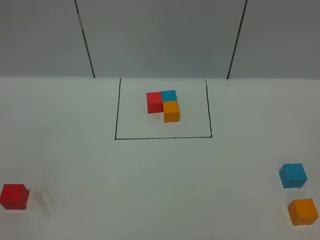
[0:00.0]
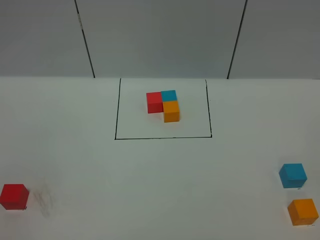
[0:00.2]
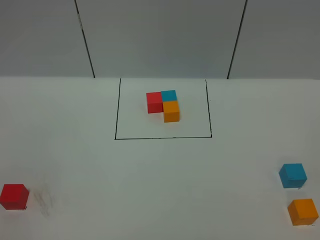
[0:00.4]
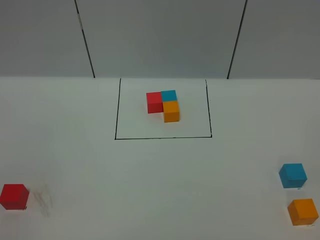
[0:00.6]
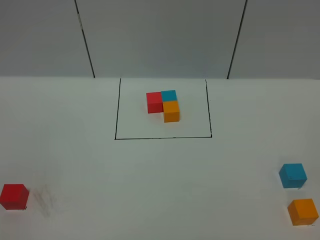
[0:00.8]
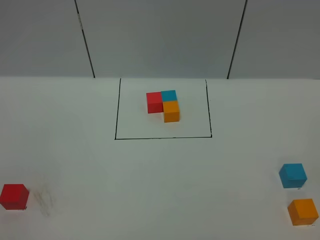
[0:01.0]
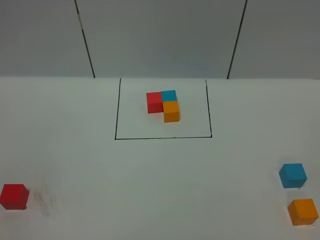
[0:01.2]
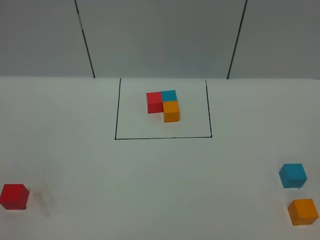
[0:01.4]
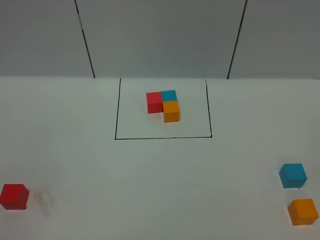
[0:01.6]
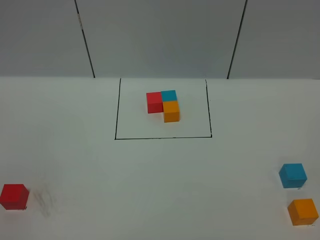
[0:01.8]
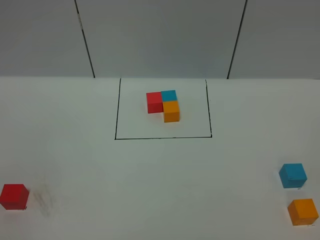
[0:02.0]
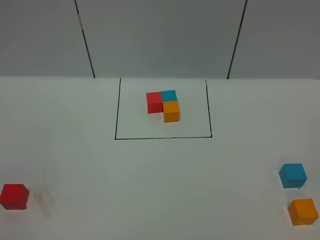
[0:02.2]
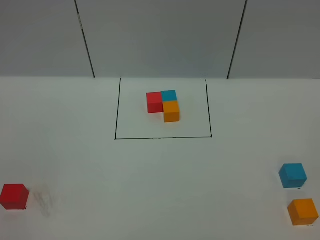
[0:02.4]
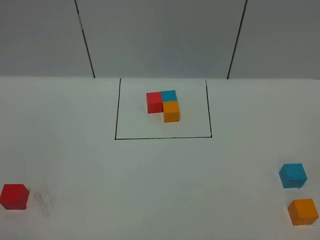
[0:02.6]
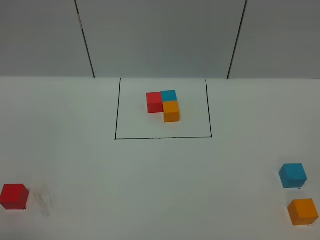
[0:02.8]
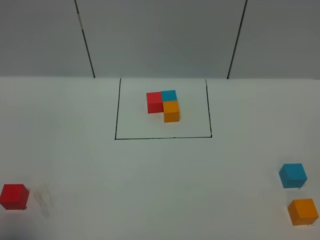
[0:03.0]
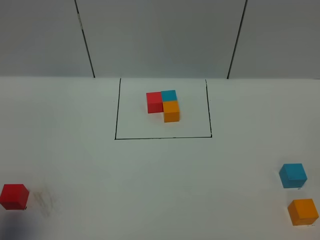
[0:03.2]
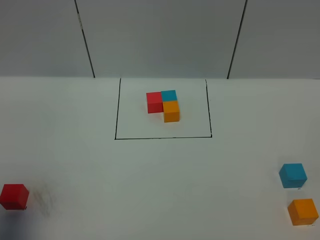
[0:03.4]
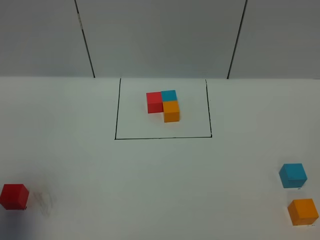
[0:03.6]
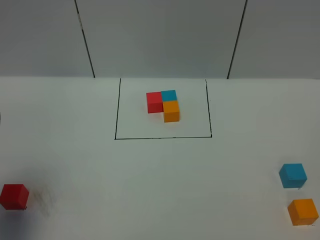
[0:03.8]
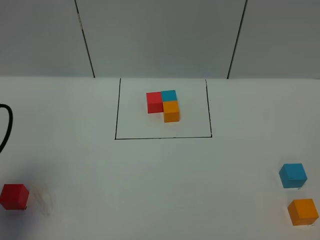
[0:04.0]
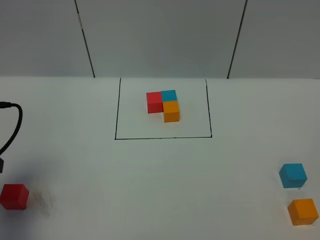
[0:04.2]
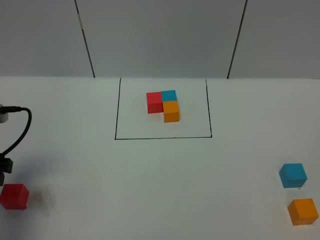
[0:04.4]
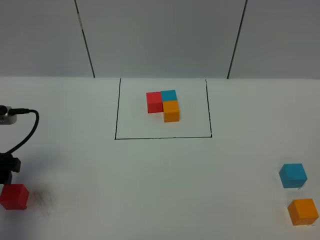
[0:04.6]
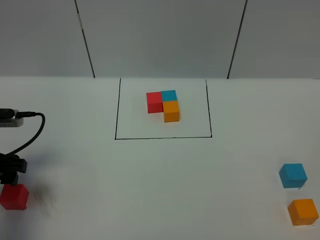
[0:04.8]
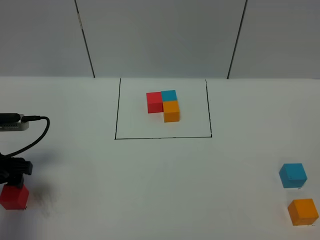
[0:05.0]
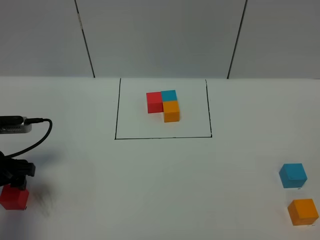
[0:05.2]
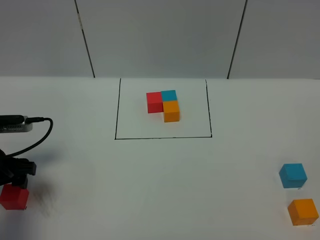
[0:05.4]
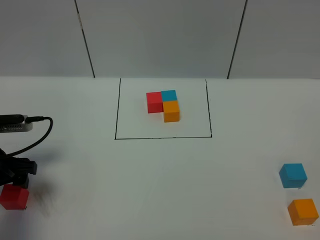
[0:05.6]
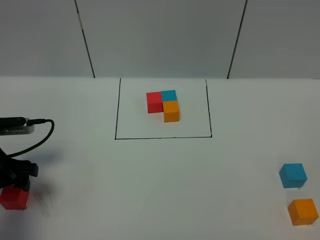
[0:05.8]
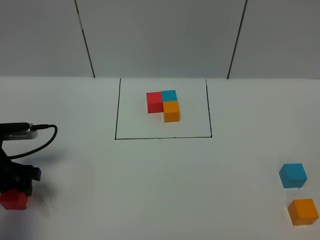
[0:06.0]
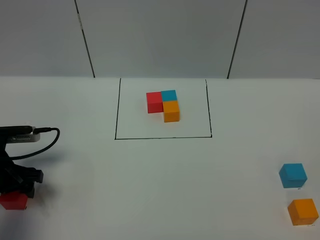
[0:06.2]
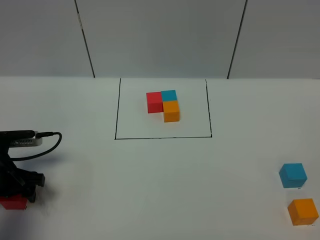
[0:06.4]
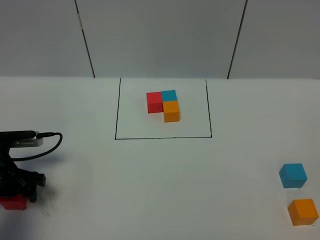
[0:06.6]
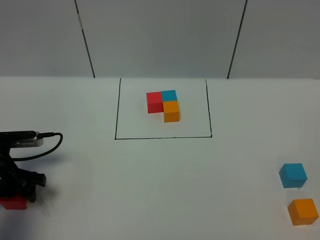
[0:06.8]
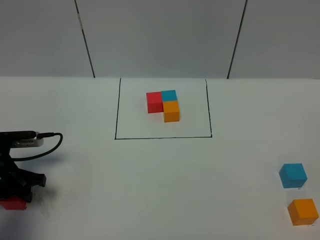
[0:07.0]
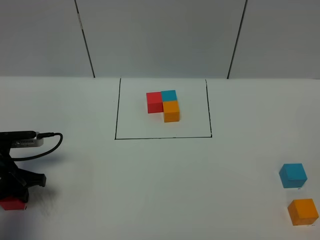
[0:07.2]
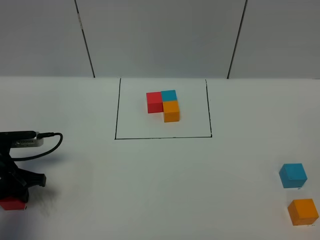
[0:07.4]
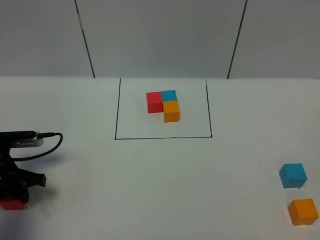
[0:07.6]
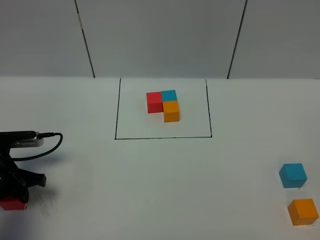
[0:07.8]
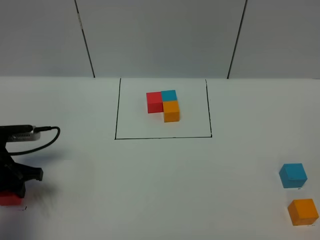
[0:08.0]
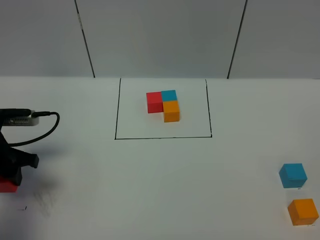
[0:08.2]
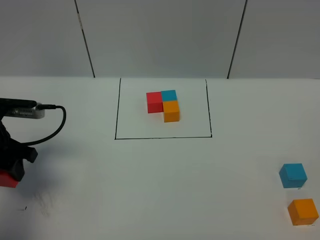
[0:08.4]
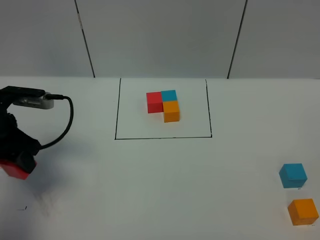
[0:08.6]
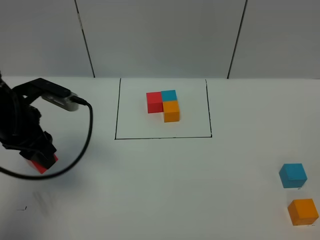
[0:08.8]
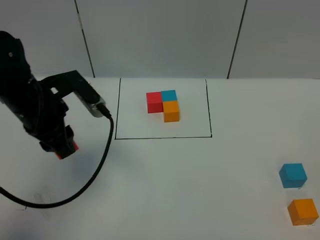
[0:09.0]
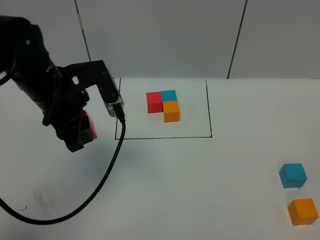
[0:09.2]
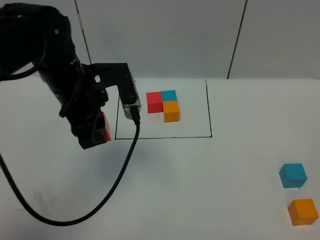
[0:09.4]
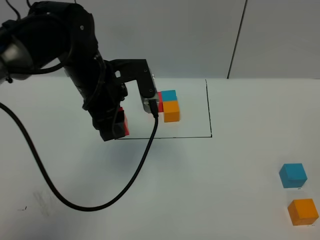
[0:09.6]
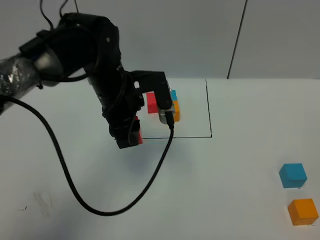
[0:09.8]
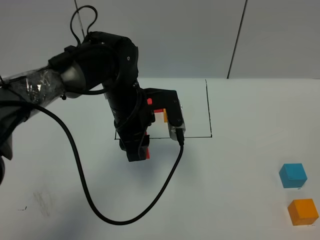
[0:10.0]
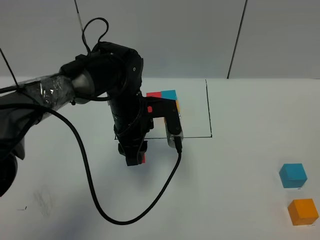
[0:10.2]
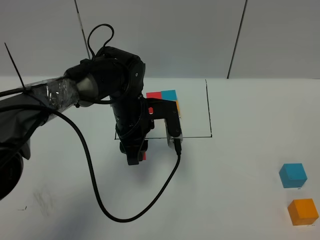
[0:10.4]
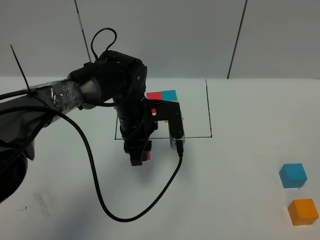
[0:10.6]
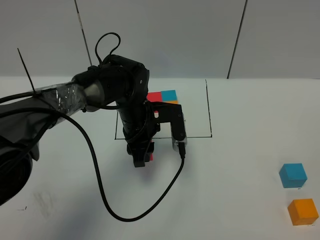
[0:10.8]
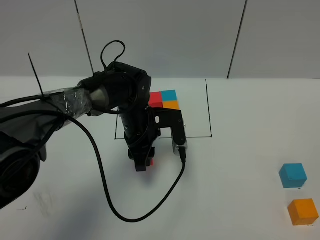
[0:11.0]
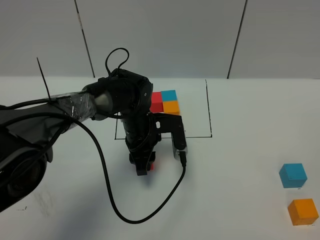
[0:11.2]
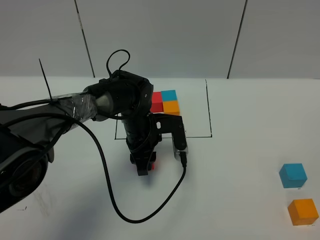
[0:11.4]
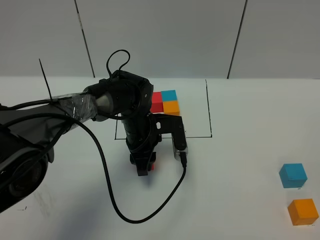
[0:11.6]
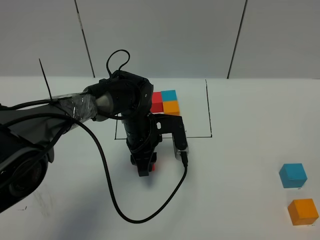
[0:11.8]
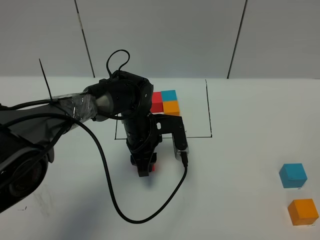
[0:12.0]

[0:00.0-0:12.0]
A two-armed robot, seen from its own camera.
Task of the whole recording: According to the building block template in front, assemble the scattered blocks together.
0:00.0 to 0:01.6: Both grippers stay about where they are.
0:03.0 to 0:04.4: The left gripper is displaced forward and downward by about 20 cm.
0:04.4 to 0:06.0: The left gripper goes roughly 10 cm downward.
0:06.0 to 0:07.6: The left gripper closes.
0:07.6 to 0:09.0: The left gripper goes roughly 20 cm upward and to the right.
0:09.0 to 0:10.4: The left gripper goes roughly 15 cm to the right, downward and forward.
0:10.4 to 0:12.0: The left gripper is displaced downward by some 5 cm.

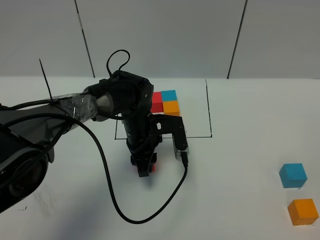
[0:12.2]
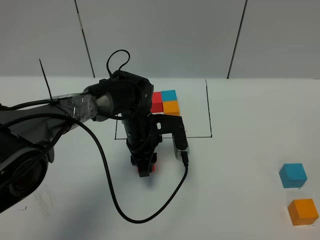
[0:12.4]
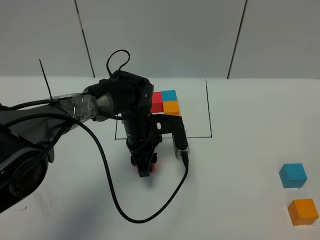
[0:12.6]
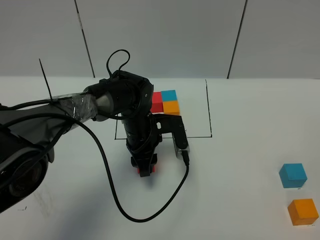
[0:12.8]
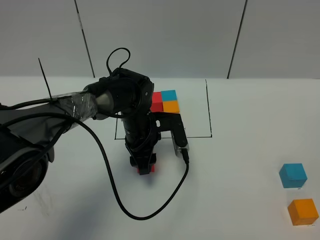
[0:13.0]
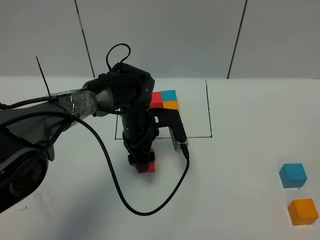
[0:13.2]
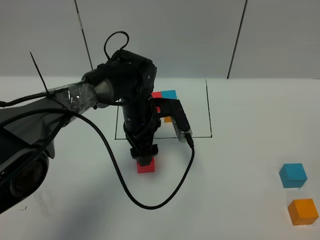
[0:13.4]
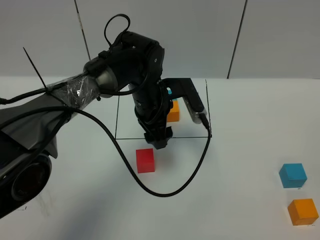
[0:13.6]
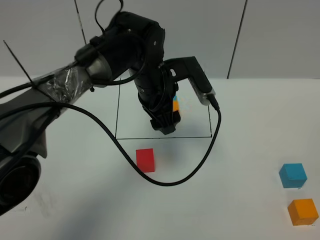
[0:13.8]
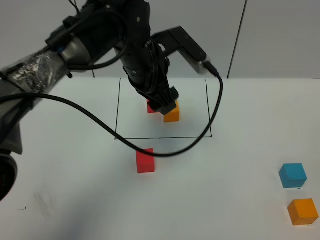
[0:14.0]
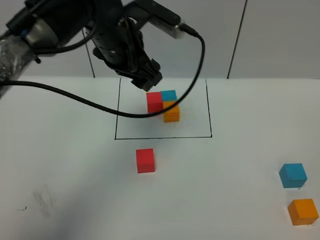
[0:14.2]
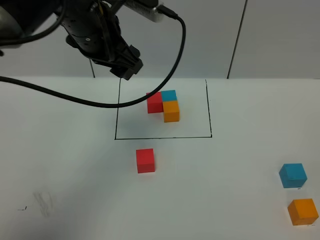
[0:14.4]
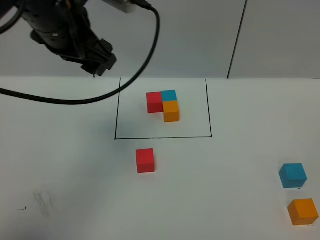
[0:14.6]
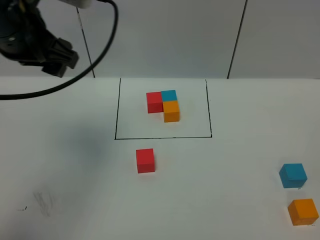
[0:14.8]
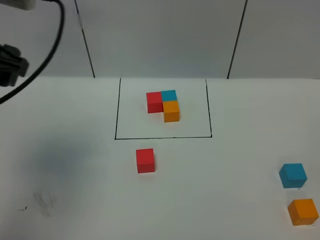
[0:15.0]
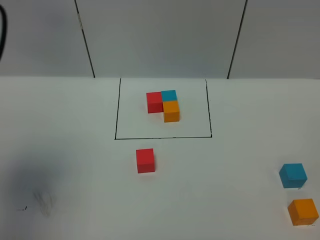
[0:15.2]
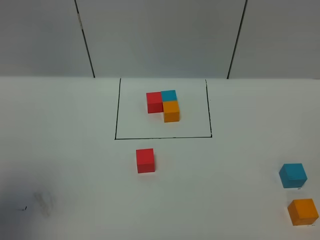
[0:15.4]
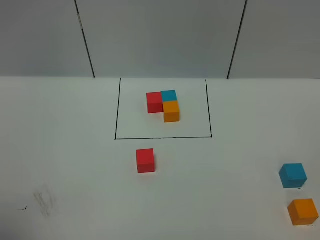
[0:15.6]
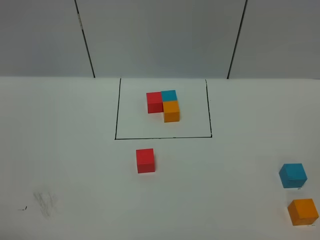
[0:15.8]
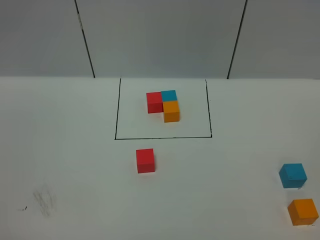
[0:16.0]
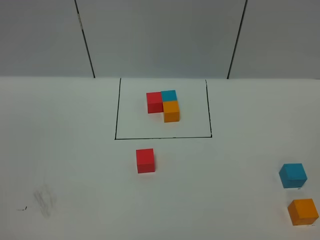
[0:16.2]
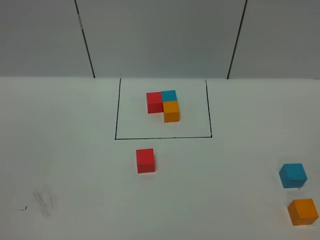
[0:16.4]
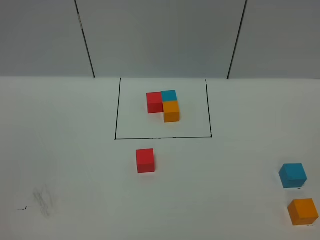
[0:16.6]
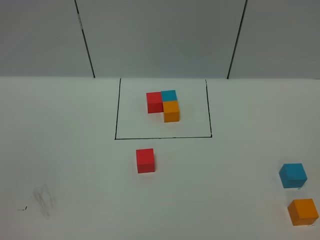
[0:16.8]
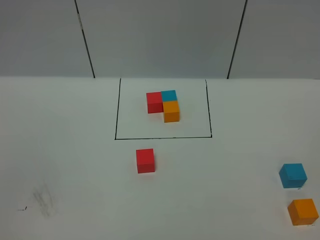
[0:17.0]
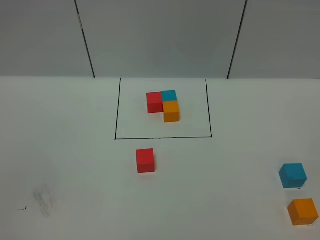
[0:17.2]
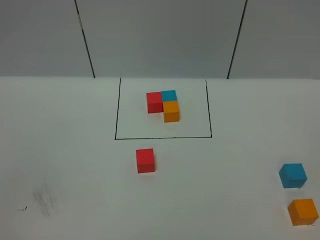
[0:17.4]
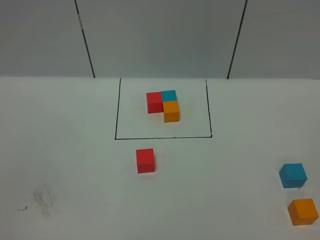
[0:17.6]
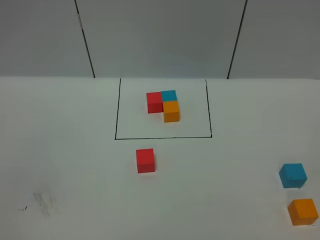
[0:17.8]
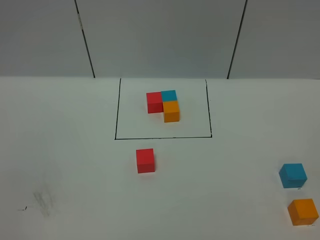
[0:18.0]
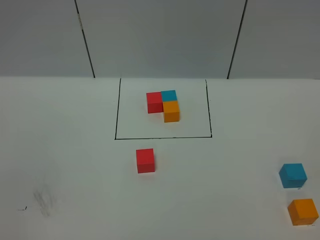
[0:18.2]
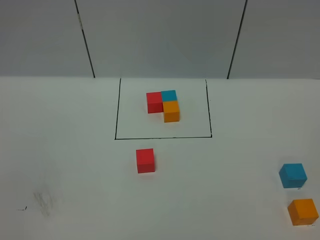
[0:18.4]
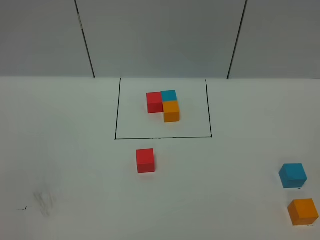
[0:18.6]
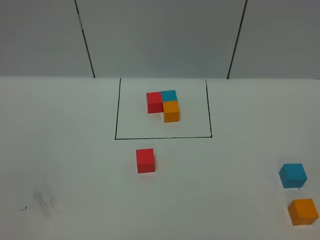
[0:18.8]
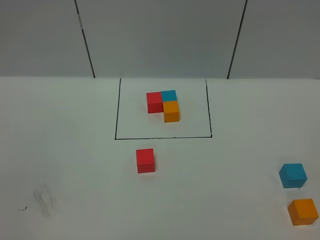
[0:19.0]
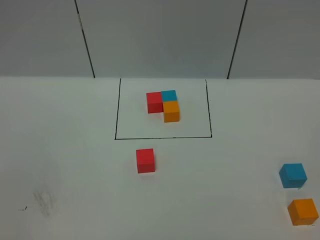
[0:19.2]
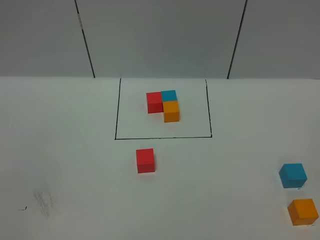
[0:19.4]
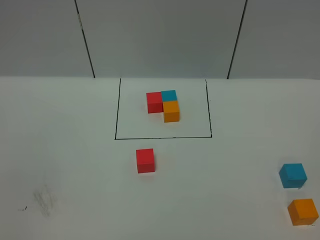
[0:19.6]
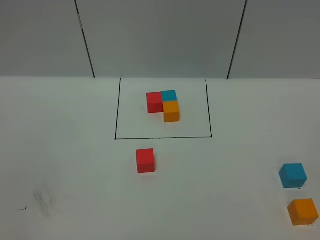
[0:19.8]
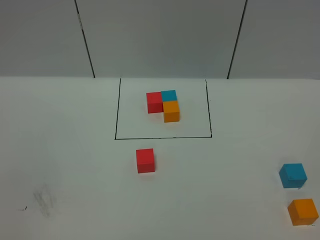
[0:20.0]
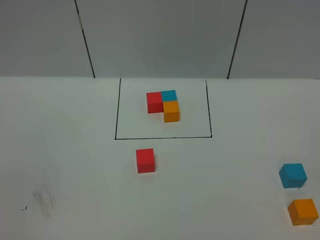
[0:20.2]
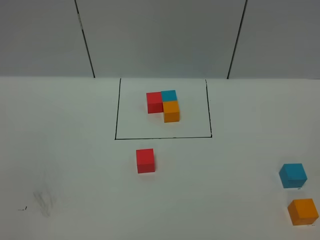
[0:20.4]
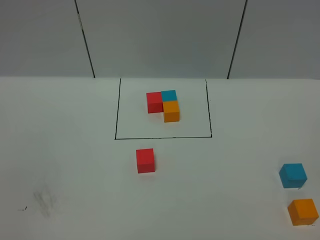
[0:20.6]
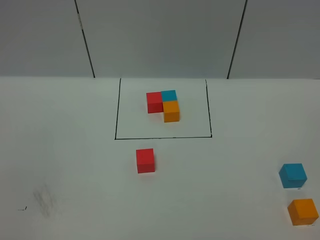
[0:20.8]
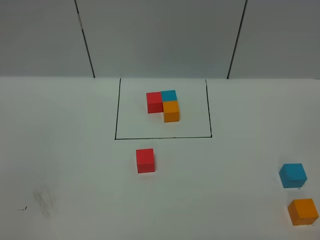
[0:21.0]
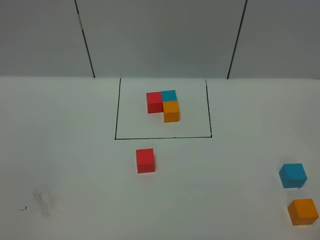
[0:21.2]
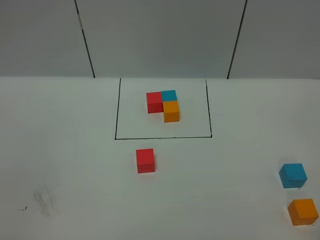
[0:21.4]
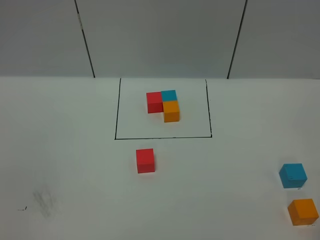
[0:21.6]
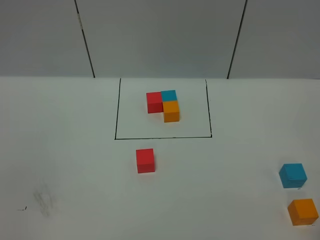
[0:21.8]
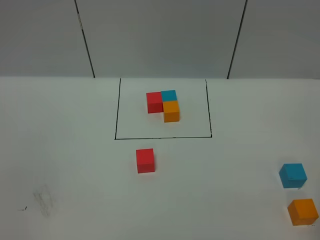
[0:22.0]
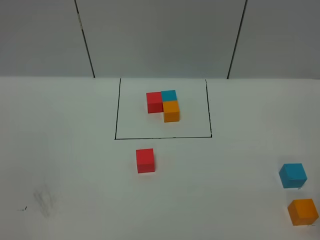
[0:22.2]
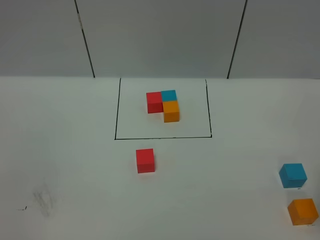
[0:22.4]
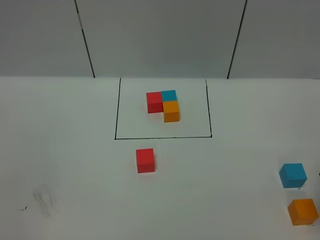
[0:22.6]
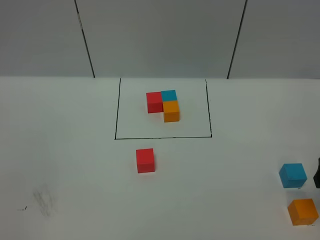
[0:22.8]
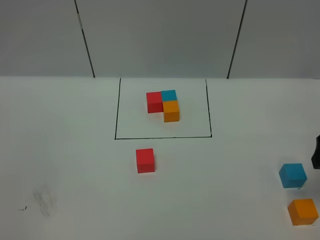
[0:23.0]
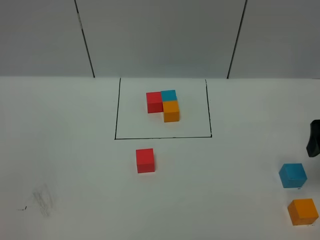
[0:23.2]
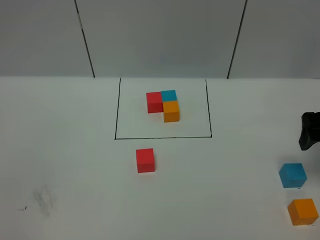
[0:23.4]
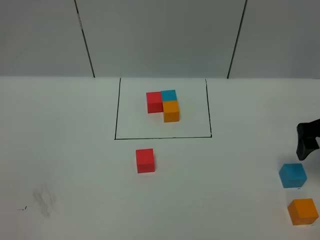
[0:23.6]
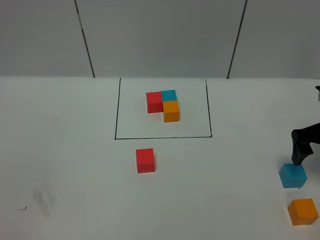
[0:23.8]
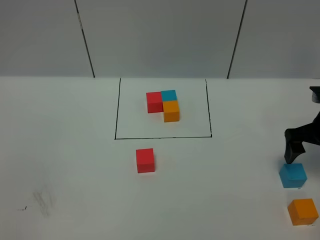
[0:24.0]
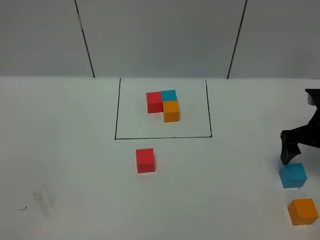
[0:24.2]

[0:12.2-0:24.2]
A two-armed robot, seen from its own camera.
Task of the whole recording: According to the building block template in front, assemble the scattered blocks together.
0:12.2 to 0:13.8: The left gripper moves upward, roughly 15 cm, and opens up.
0:13.8 to 0:15.2: The left gripper shifts roughly 35 cm to the left, backward and upward.
0:15.2 to 0:16.6: The left gripper moves backward and downward, roughly 25 cm.
0:18.2 to 0:19.8: Both grippers stay about where they are.
0:22.6 to 0:24.2: The right gripper moves forward and downward, approximately 15 cm, and opens its fingers.
